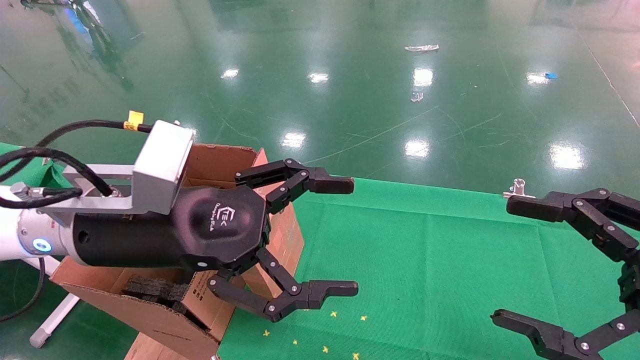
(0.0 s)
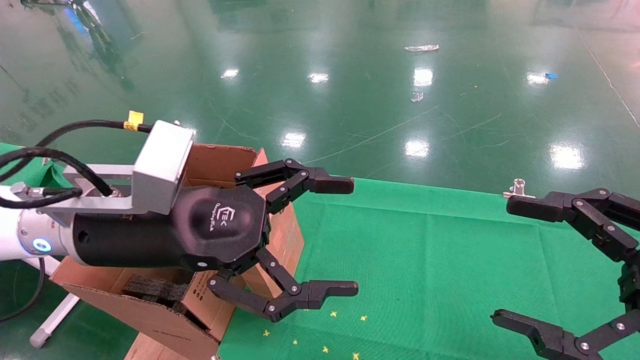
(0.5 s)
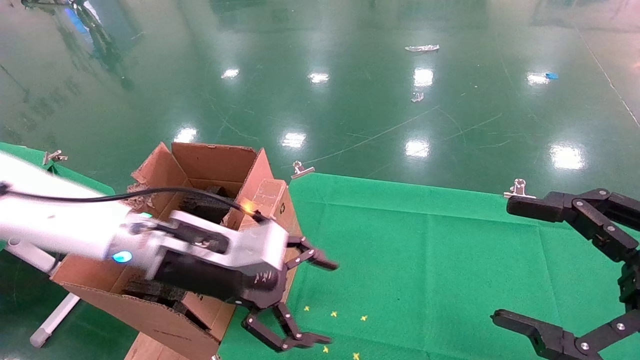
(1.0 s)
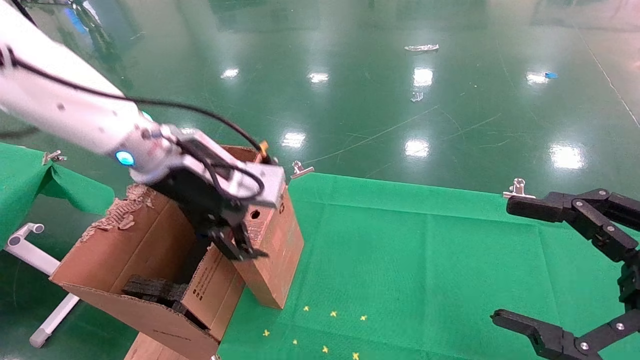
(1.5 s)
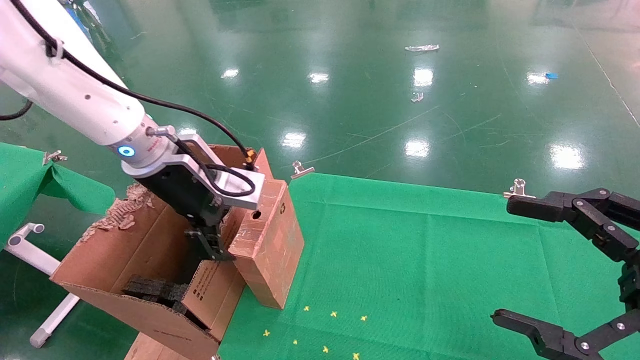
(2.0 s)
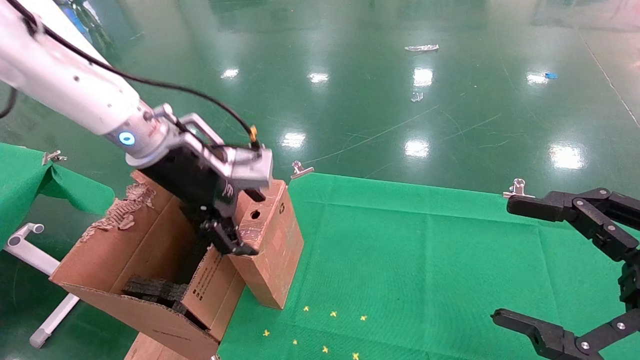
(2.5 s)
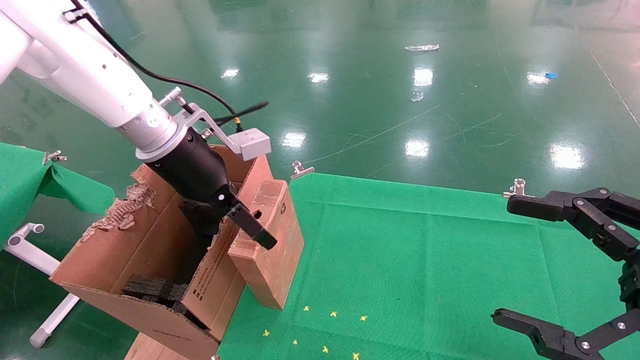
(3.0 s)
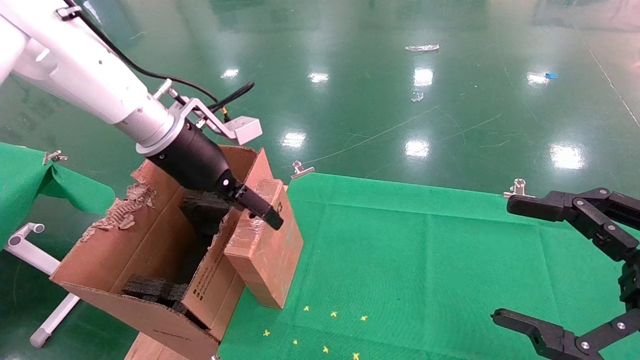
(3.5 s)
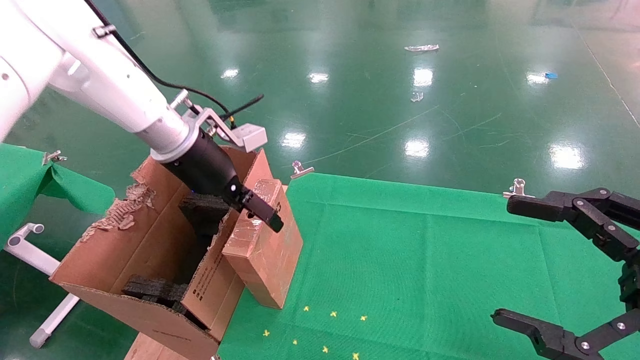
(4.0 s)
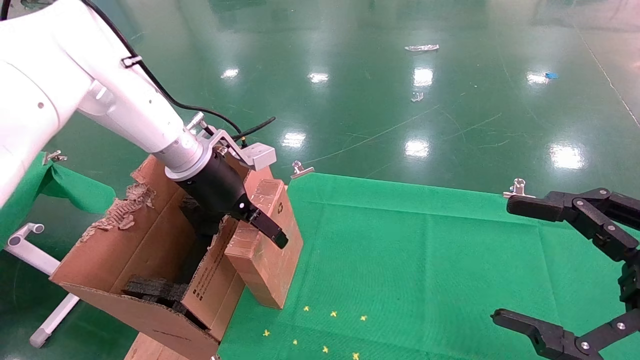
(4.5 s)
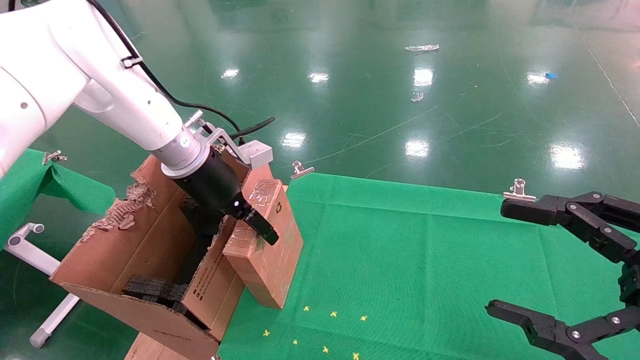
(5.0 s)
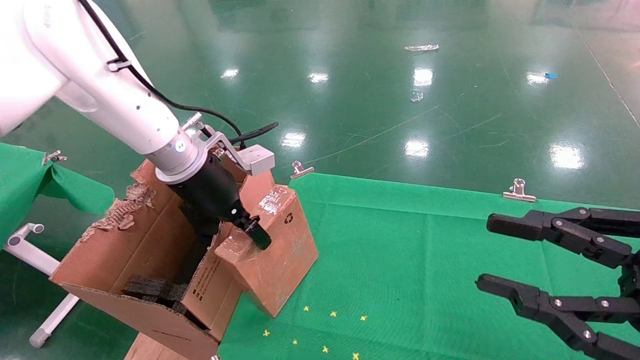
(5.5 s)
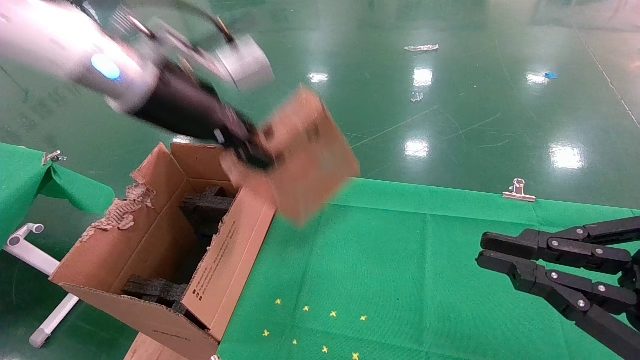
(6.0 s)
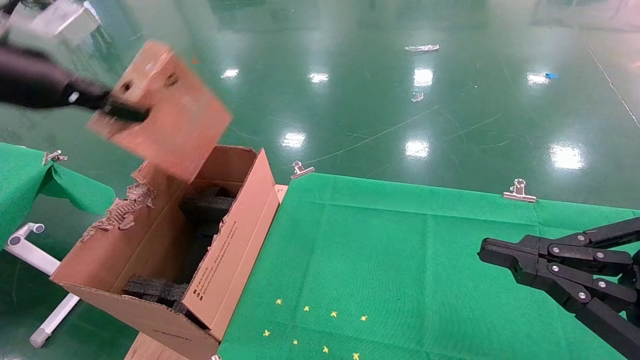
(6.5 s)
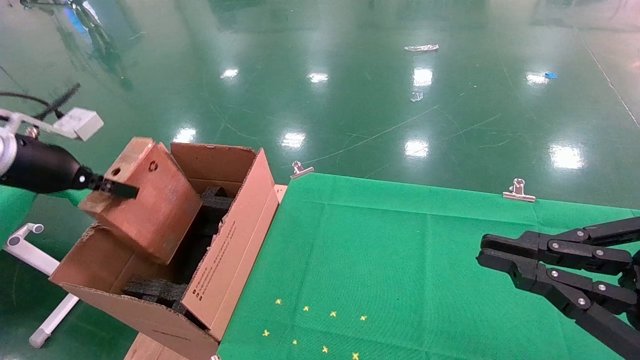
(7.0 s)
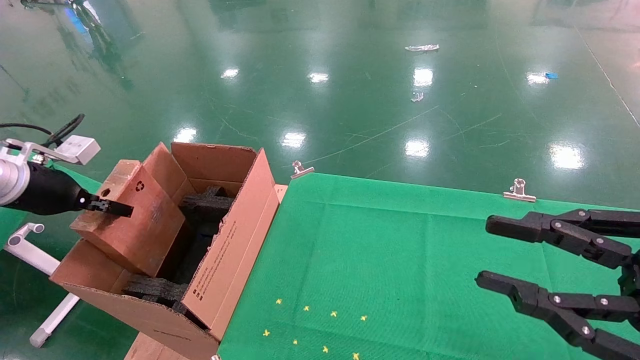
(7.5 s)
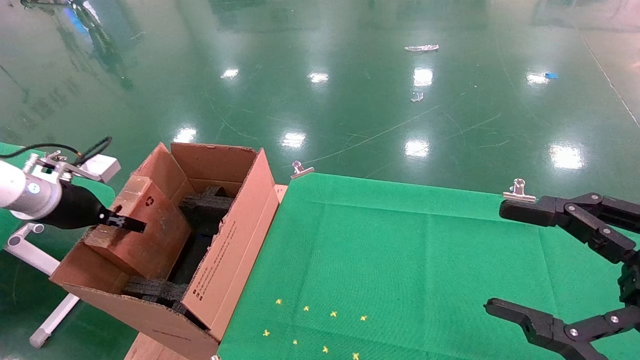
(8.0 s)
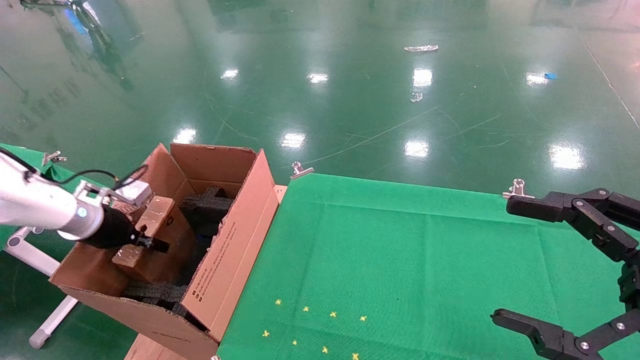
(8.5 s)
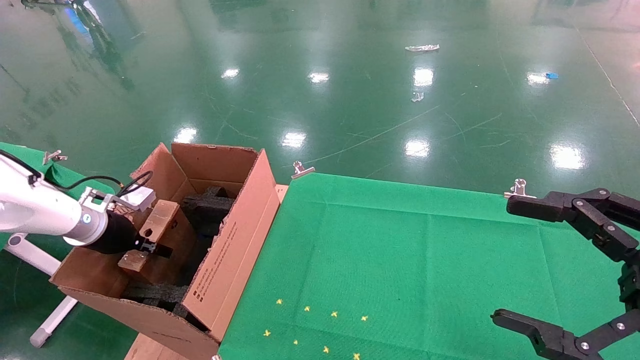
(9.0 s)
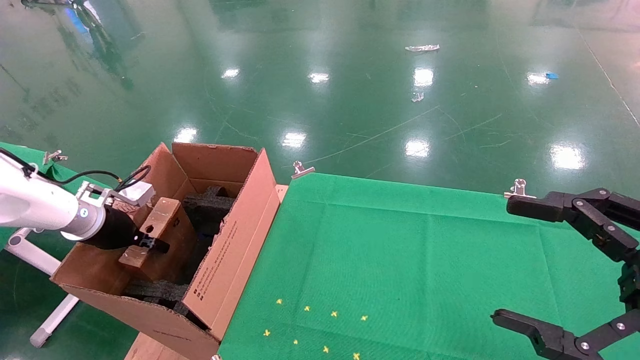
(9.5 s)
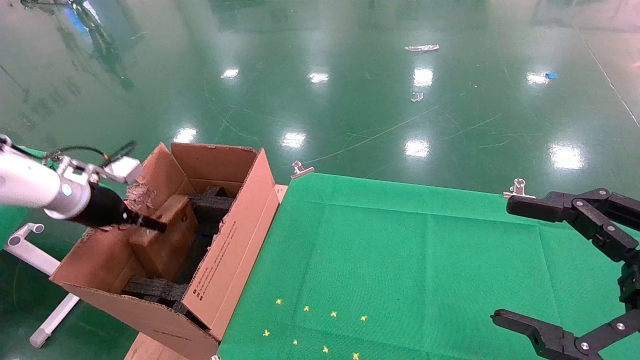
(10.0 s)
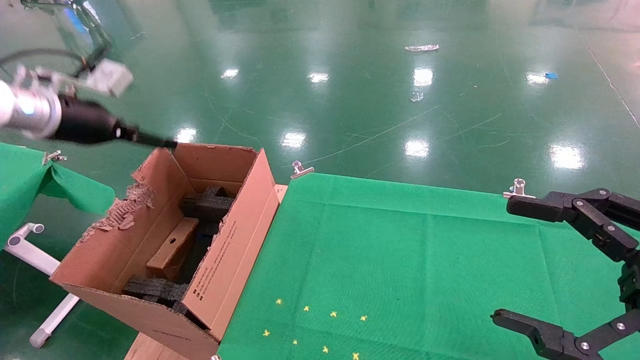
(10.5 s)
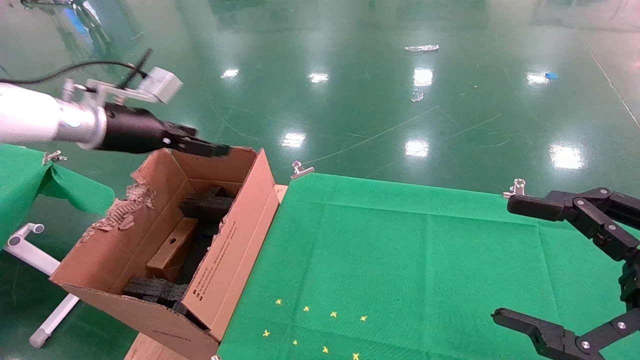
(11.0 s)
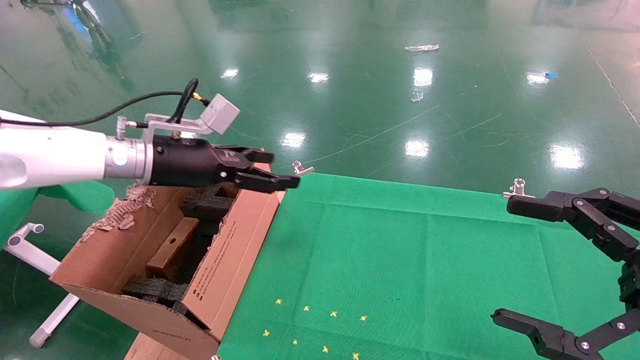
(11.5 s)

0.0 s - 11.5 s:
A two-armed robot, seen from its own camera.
Task of the whole recording: using a robotic arm to pick up a cardboard box and palace it the carton.
Step, 1.0 s - 5.0 s: Pick up the mouse and the power cord paper box.
Step, 5.5 s - 10.5 s: Place the mouse and the power cord paper box into the container.
0.0 s - 2.0 s: The left gripper is displaced forward by approximately 10 cm.
2.0 s - 4.0 s: The left gripper is displaced forward by approximately 5 cm.
4.0 s - 6.0 s: The left gripper shifts about 10 cm upward and backward, and closes. Meanwhile the right gripper closes up.
6.0 s - 7.5 s: The left gripper travels to the left and downward by roughly 30 cm.
7.5 s - 9.5 s: The left gripper moves downward and forward, roughly 10 cm, while the right gripper opens up.
9.5 s - 11.5 s: The left gripper travels to the right and upward by some 20 cm, and opens its fingers.

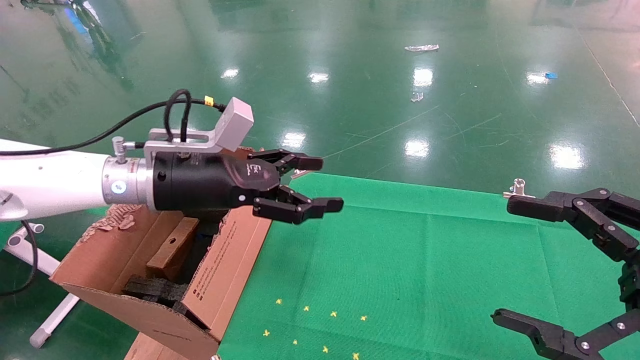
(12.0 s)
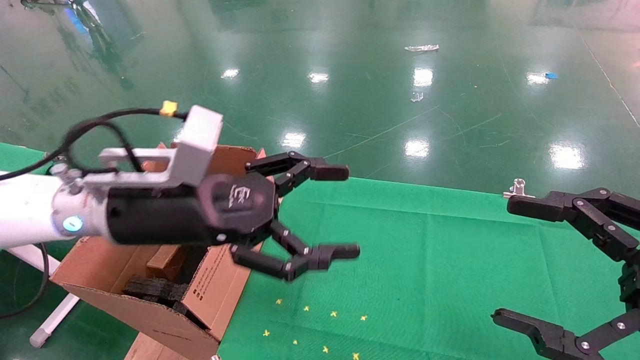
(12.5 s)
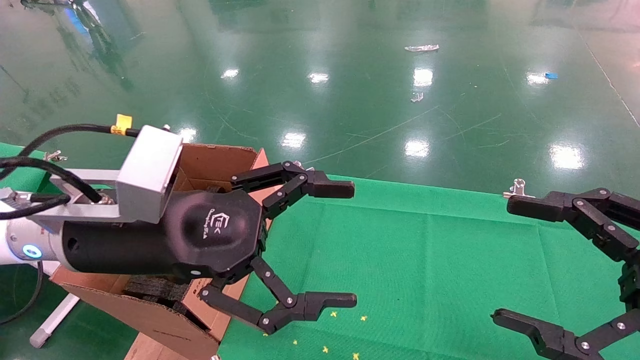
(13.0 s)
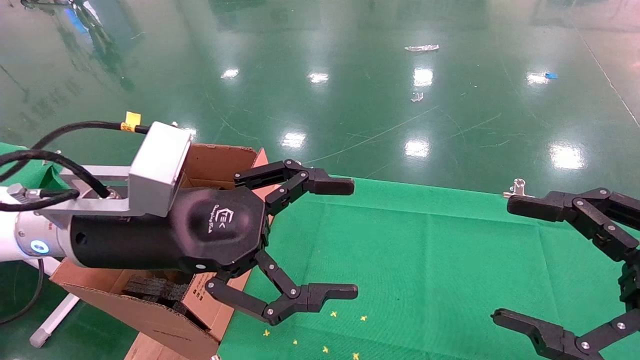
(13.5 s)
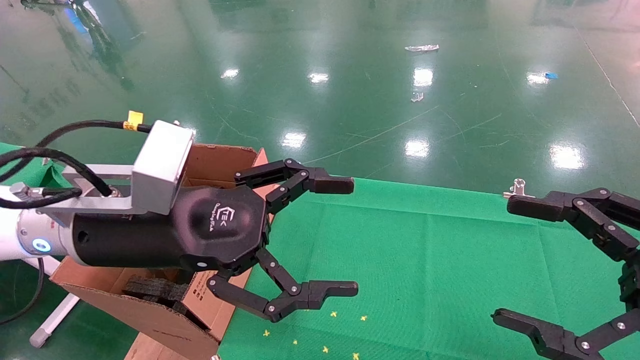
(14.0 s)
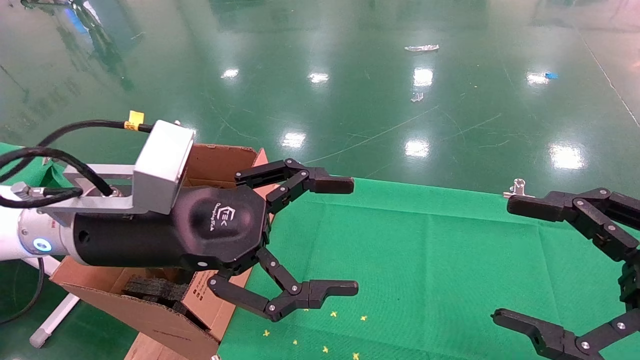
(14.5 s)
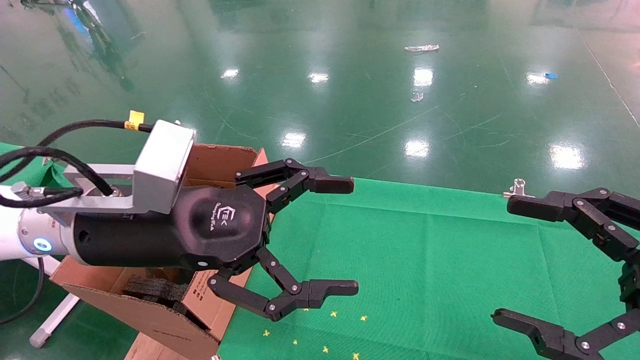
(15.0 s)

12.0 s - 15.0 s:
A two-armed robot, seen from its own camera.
Task of the whole recording: using a robotic arm to pick up a cardboard box and palace it the carton.
12.0 s - 13.5 s: The left gripper moves backward, about 10 cm.
13.5 s - 15.0 s: Neither gripper changes place.

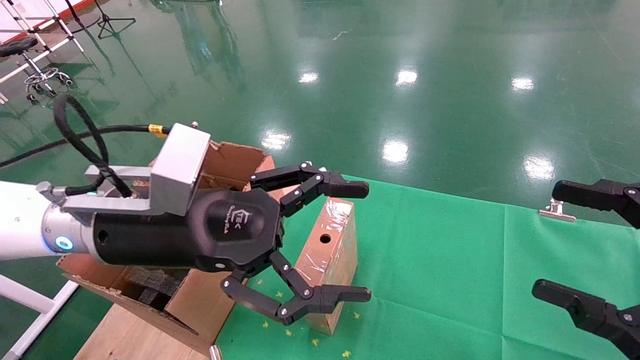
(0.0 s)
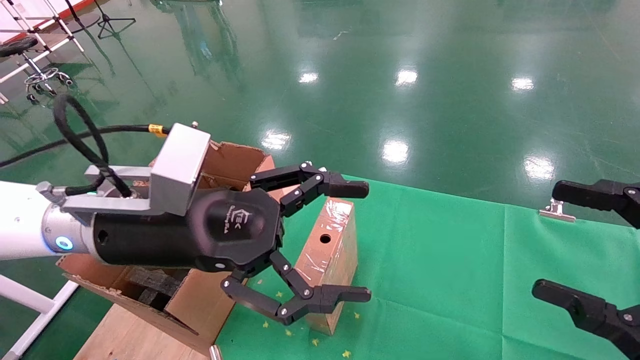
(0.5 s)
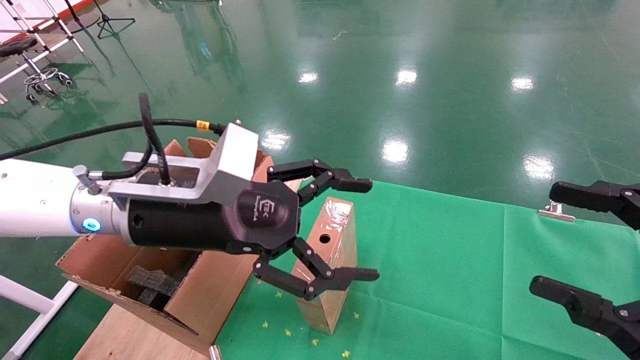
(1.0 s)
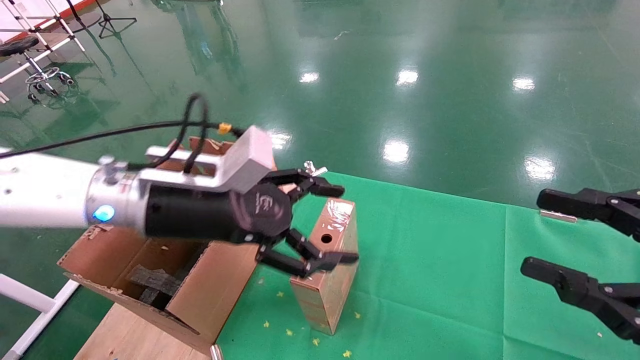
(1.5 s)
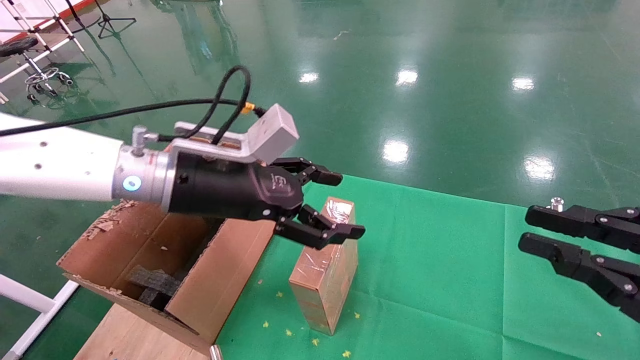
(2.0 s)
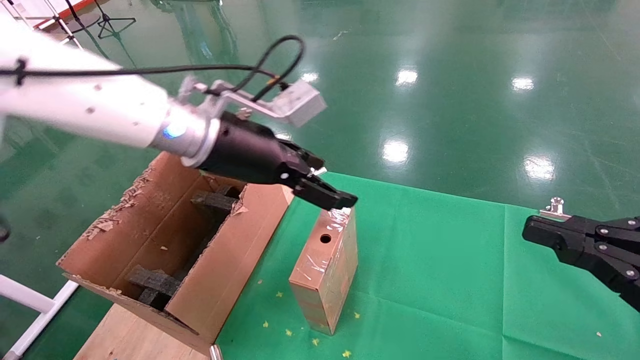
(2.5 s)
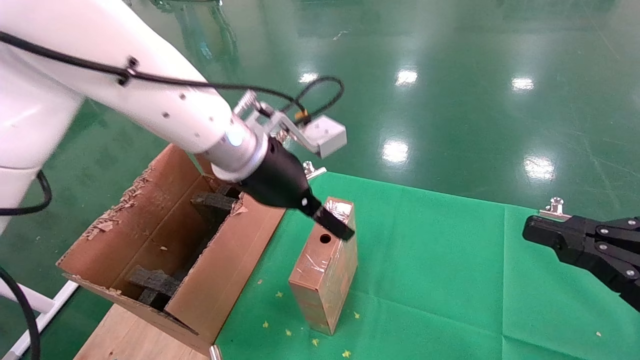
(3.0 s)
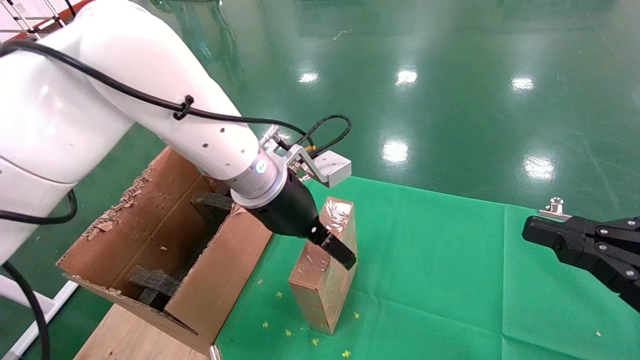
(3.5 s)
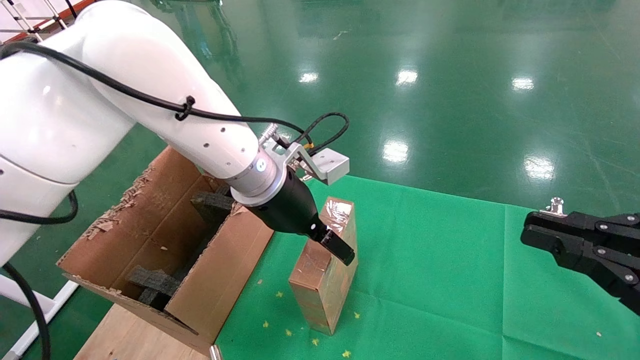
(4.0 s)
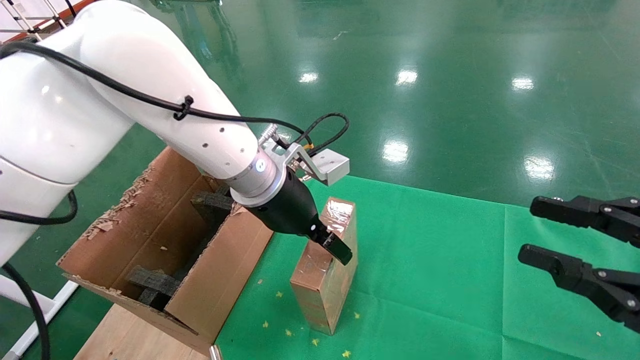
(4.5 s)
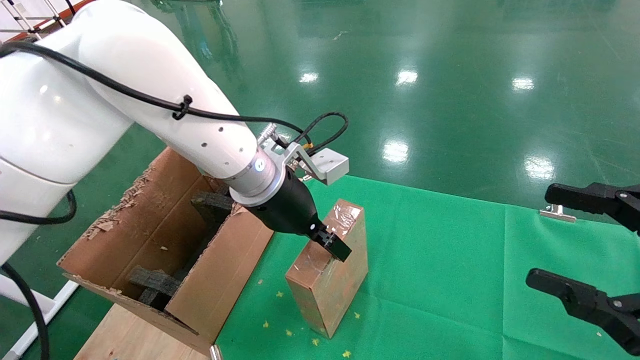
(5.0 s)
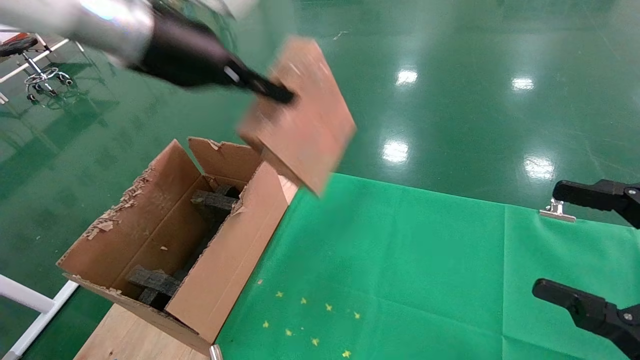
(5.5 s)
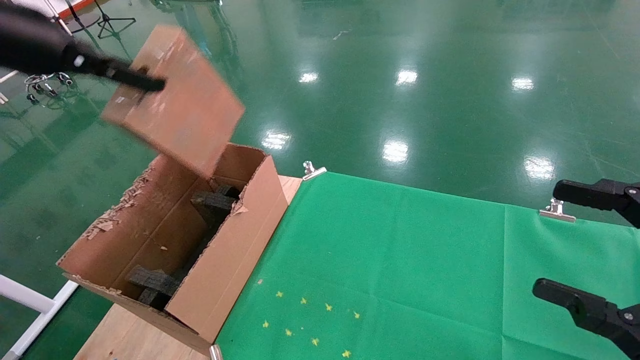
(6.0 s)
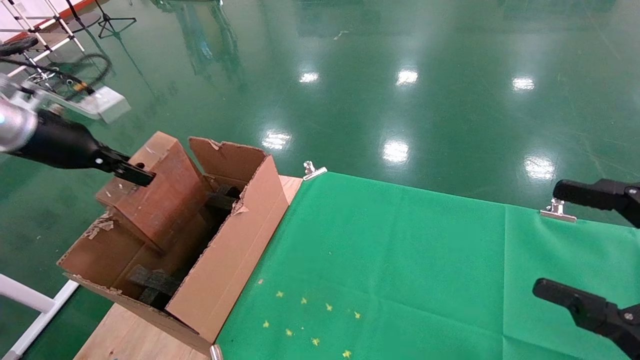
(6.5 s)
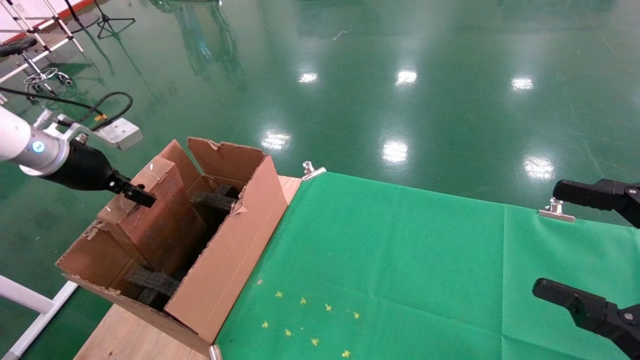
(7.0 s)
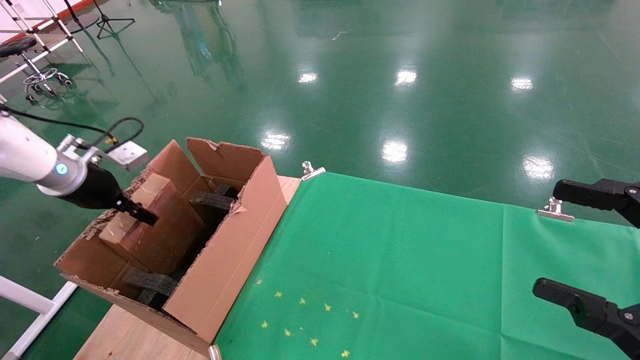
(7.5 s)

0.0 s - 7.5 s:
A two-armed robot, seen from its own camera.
Task of the whole recording: using a robotic arm to pick up a cardboard box and palace it the carton.
Step, 1.0 s - 4.5 s: Pick up the mouse and the power cord paper box.
0.0 s - 2.0 s: The right gripper closes. The left gripper heads forward, covering approximately 5 cm.
2.0 s - 4.0 s: The left gripper is displaced to the right and forward by about 10 cm.
4.0 s - 5.5 s: The left gripper goes approximately 20 cm upward and to the left, and closes its fingers; the right gripper opens its fingers.
5.5 s - 7.5 s: The left gripper shifts some 30 cm to the left and downward.
